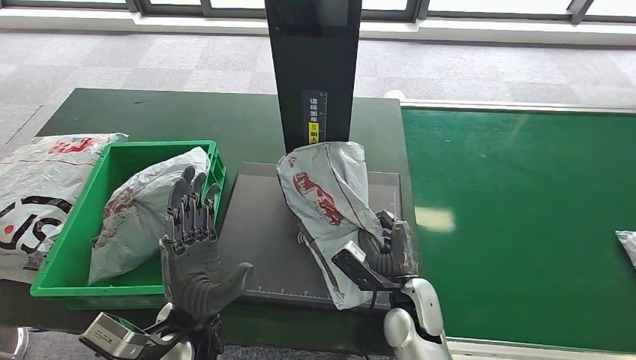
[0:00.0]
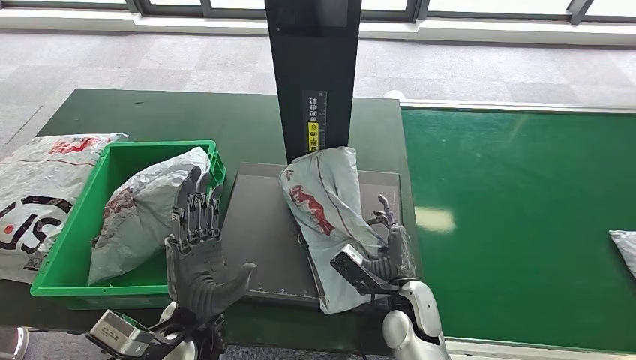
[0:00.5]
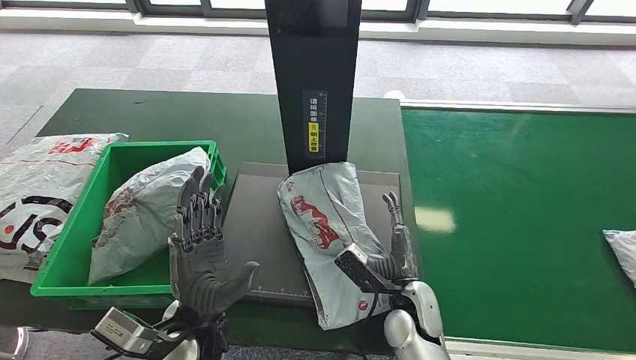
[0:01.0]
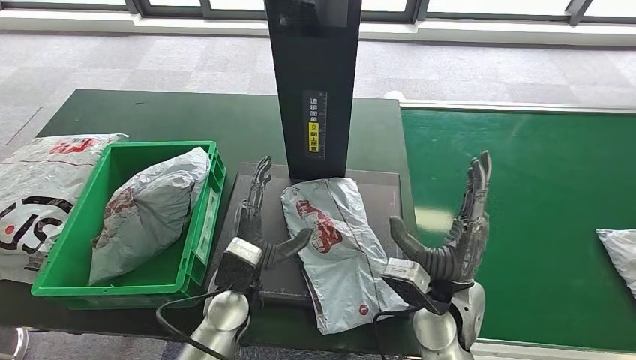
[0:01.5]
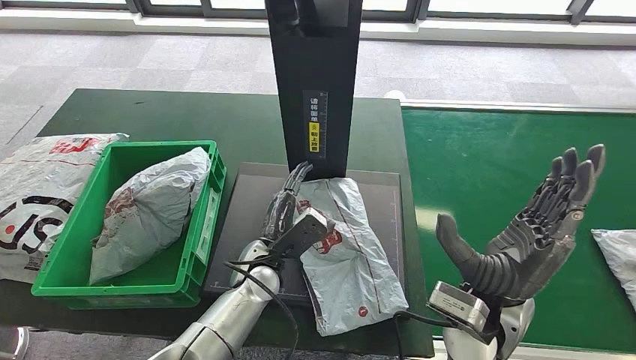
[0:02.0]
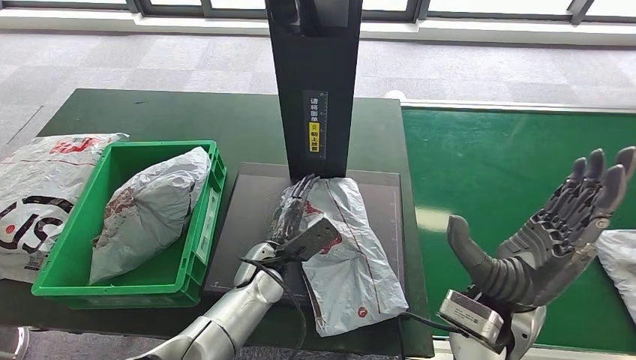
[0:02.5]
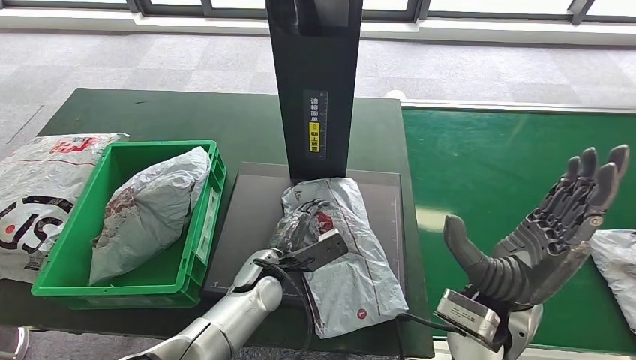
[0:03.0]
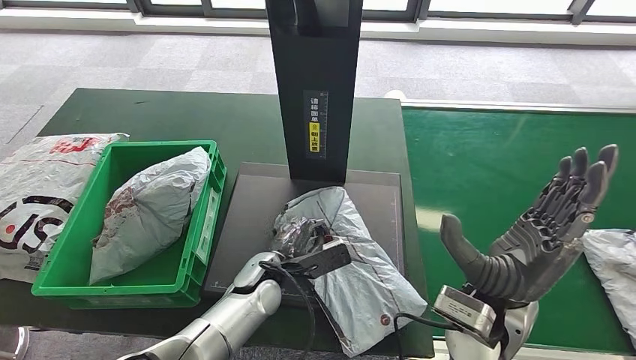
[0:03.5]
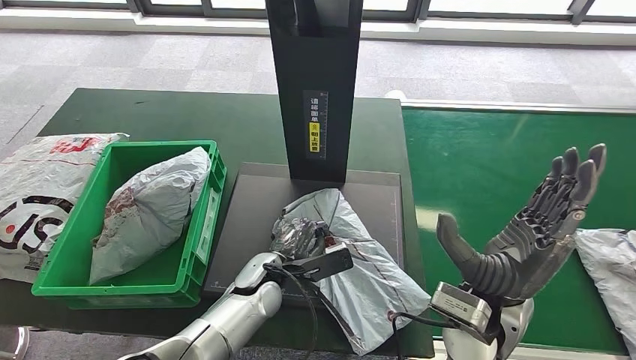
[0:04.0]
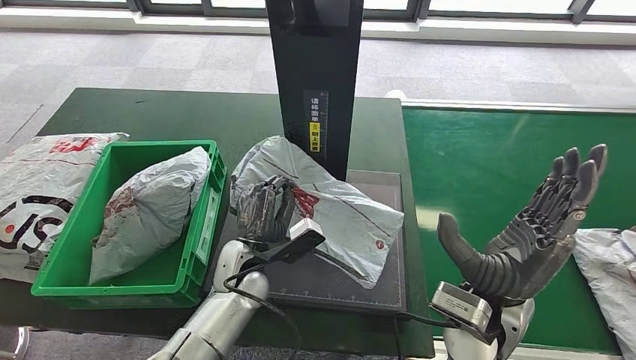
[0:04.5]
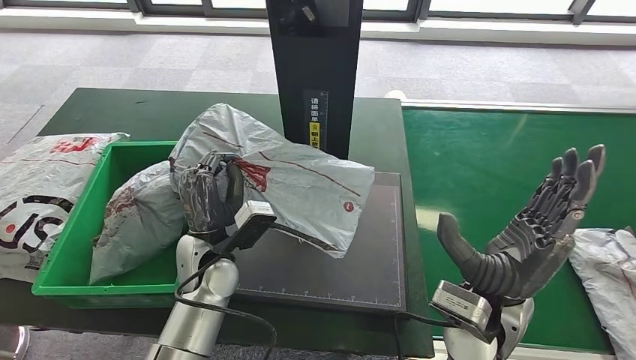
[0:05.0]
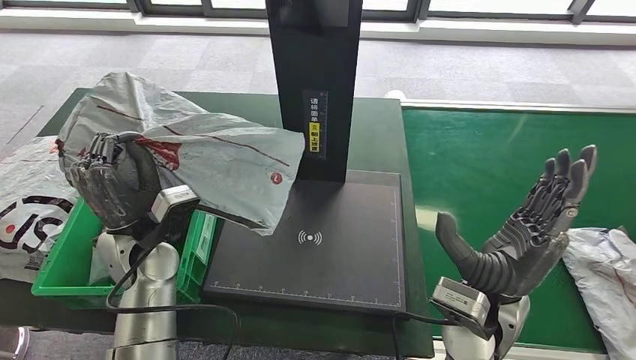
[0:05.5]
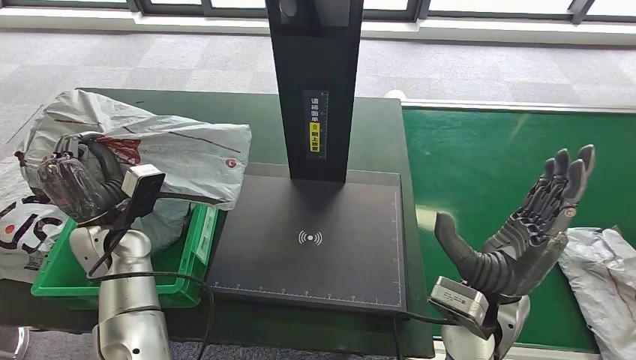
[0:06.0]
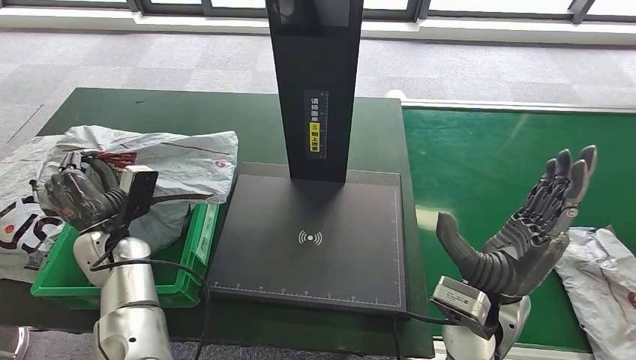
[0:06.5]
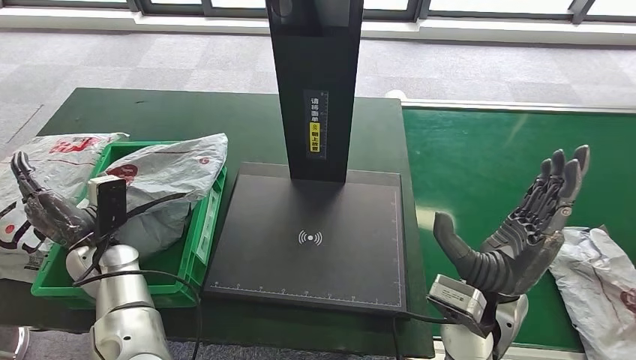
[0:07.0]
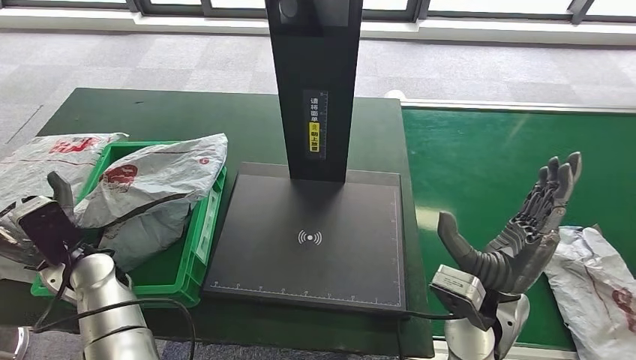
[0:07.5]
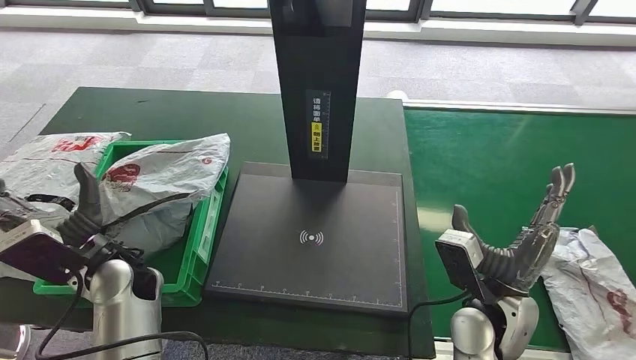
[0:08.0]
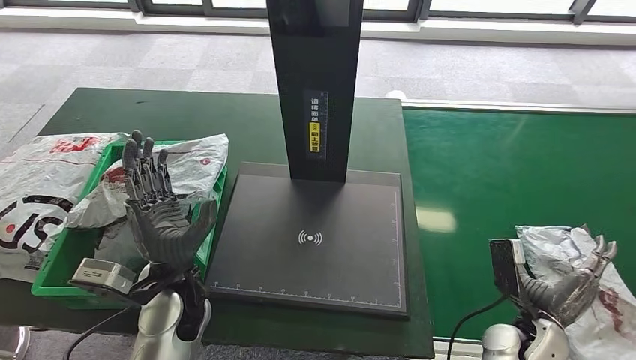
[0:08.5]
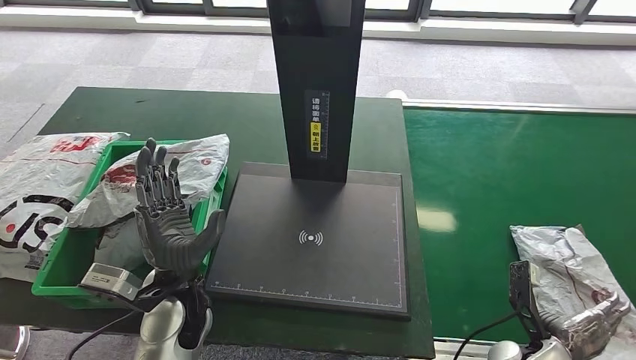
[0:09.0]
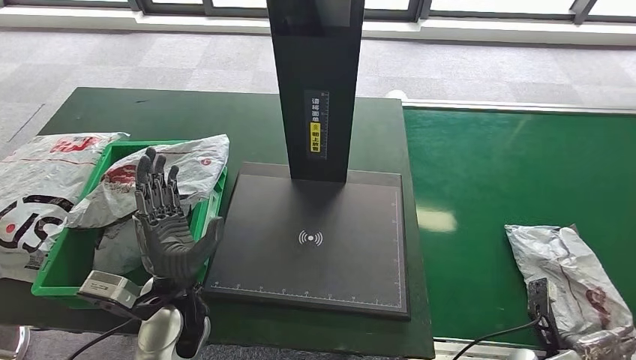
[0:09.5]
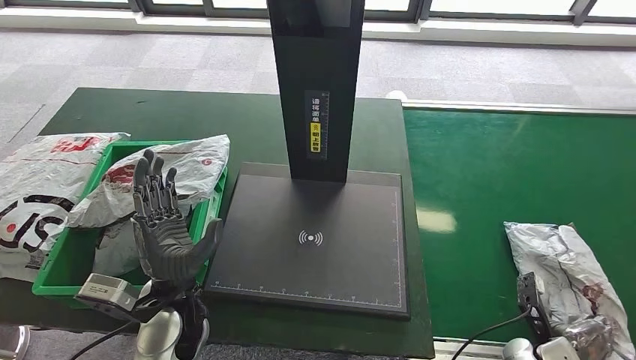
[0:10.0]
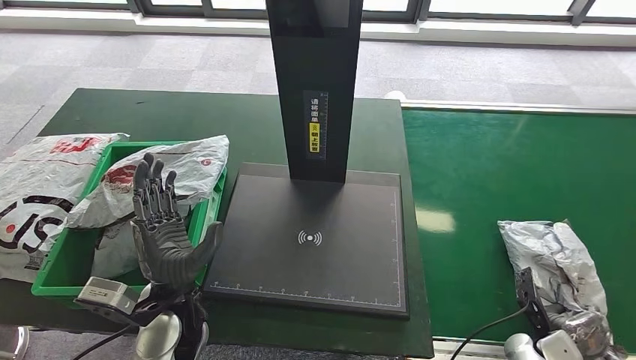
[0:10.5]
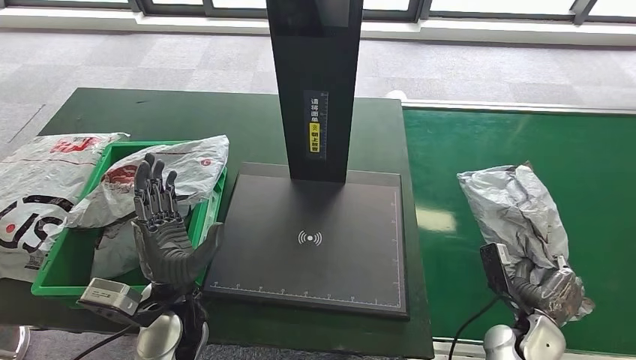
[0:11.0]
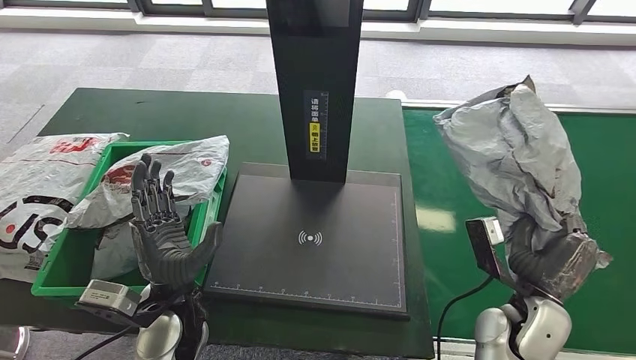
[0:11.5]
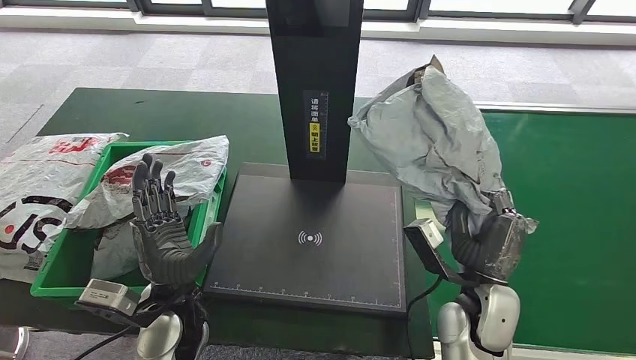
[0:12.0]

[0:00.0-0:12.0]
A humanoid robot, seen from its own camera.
Step, 0:02.0 to 0:05.5: Pick up the parcel from the inbound machine.
Step, 0:06.0 to 0:08.5: Place the parcel into the delivery box.
0:00.0 to 0:02.0: The right hand goes about 15 cm upward and to the right. The left hand goes about 15 cm forward, to the right and downward.
0:08.0 to 0:10.0: The left hand travels to the right by about 10 cm; the right hand is displaced downward and to the right by roughly 25 cm.
0:10.0 to 0:12.0: The right hand heads to the left and upward, covering roughly 25 cm.

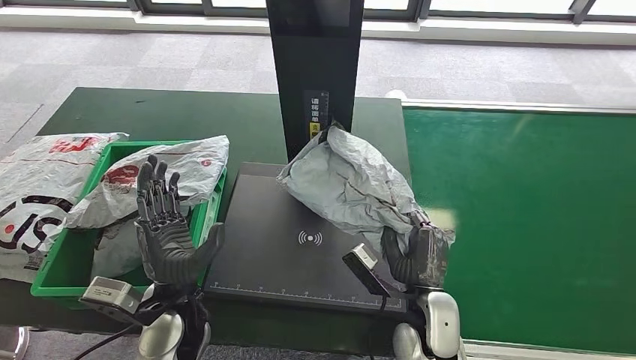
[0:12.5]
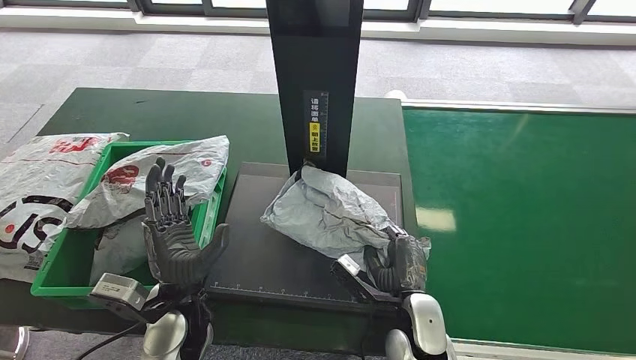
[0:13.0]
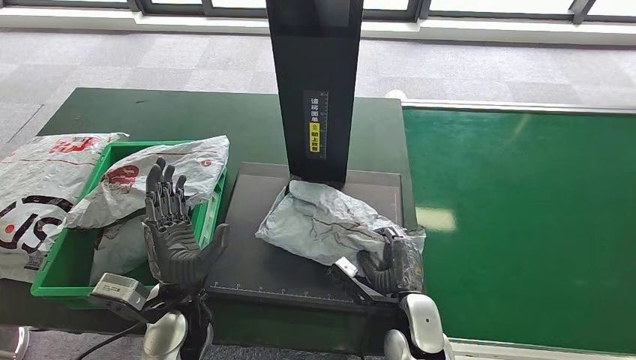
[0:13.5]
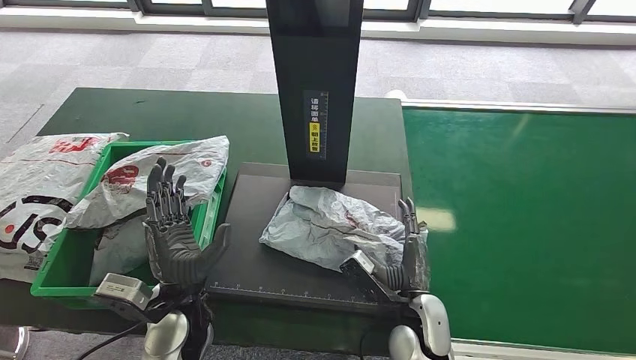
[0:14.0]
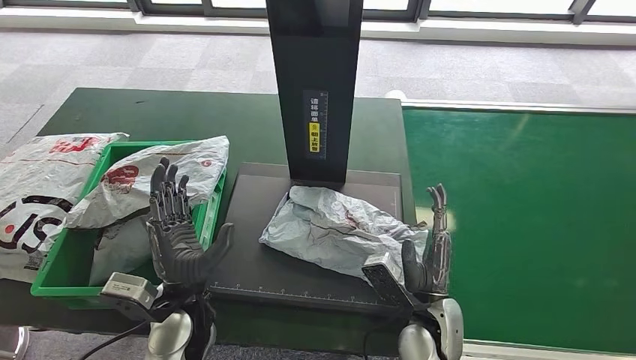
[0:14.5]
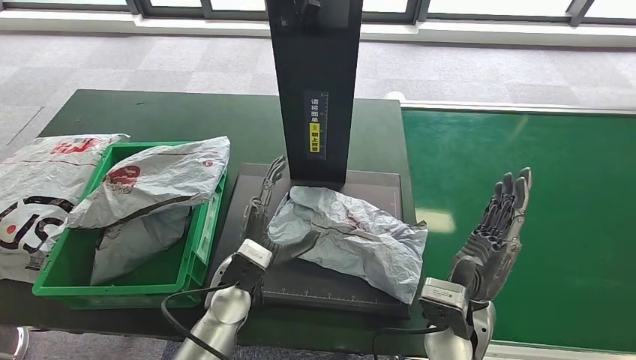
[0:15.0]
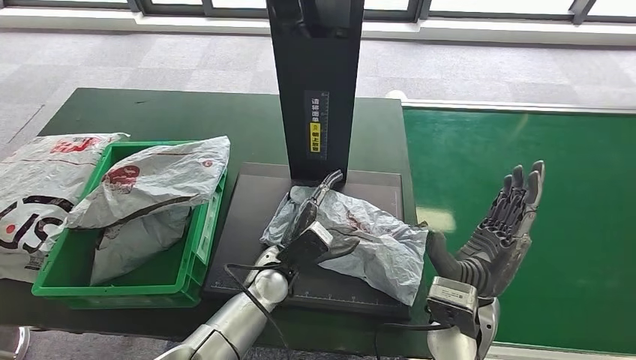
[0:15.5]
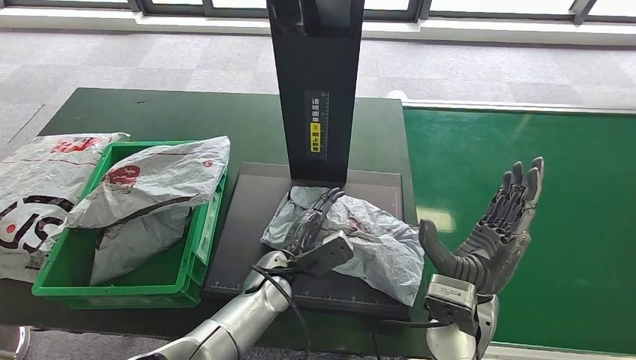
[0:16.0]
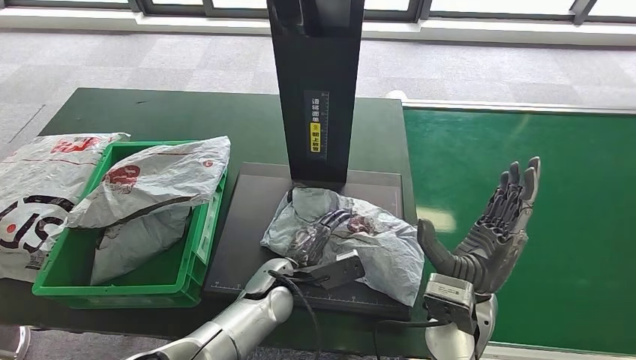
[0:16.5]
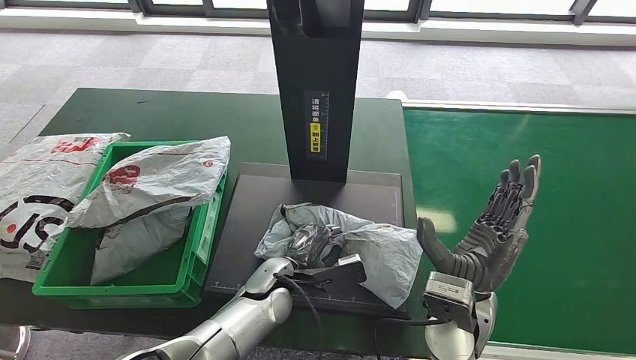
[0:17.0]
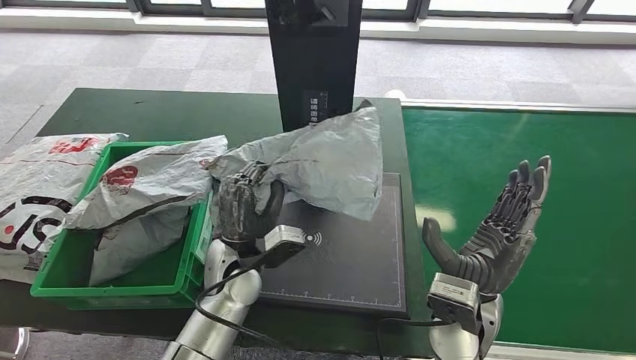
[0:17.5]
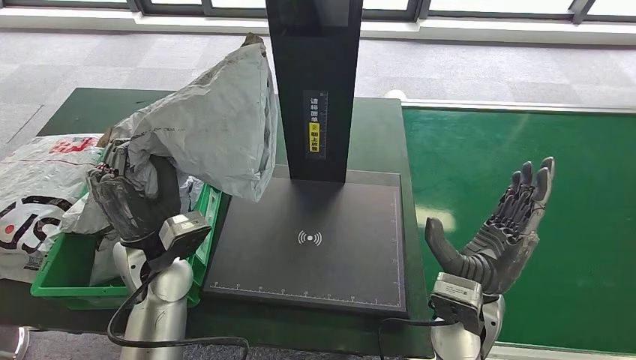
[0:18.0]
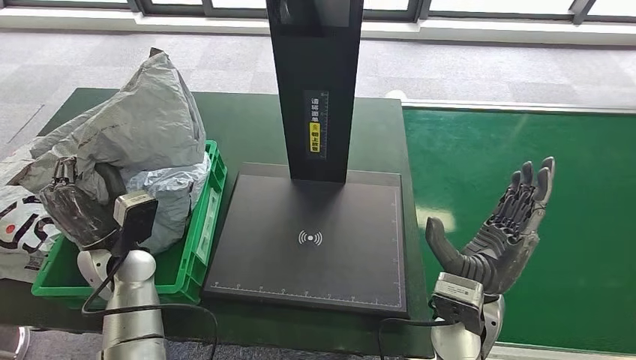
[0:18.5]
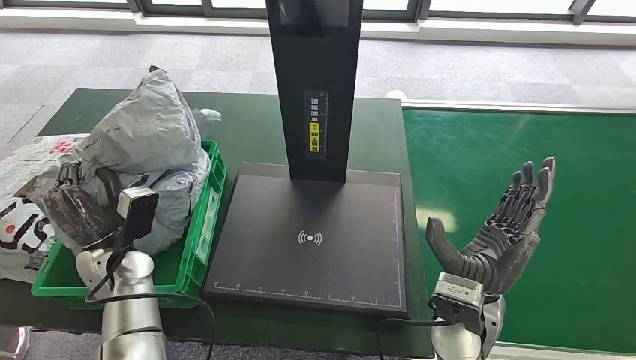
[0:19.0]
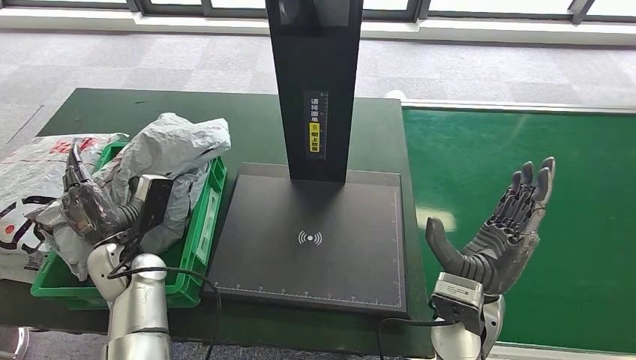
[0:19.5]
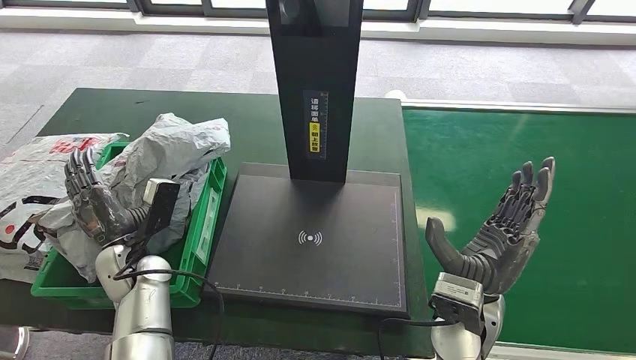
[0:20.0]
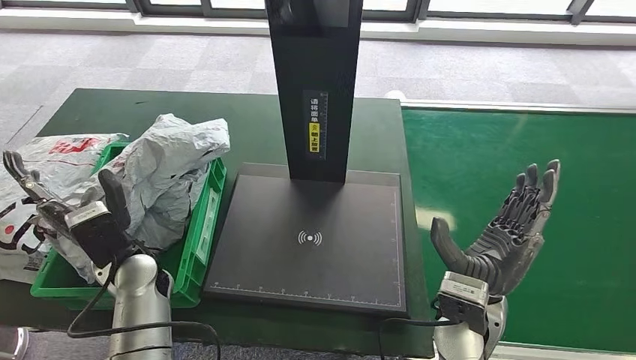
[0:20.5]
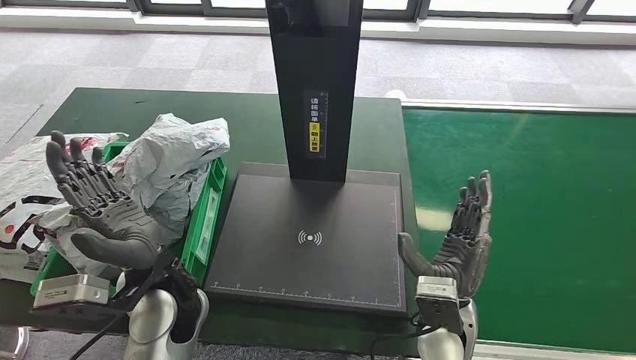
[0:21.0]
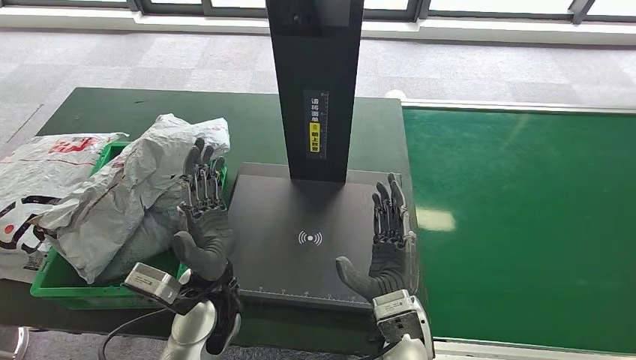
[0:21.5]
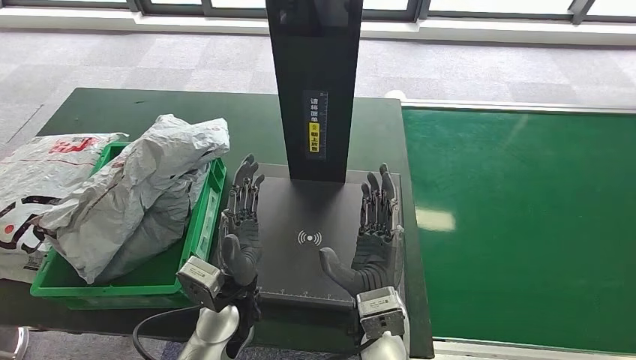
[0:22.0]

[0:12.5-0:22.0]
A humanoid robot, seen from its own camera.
Step, 0:12.5 to 0:15.0: Place the parcel onto the inbound machine.
Step, 0:15.5 to 0:18.0: Pick up the parcel from the inbound machine.
Step, 0:18.5 to 0:22.0: Place the parcel into the delivery box.
0:14.5 to 0:16.5: The right hand shifts some 10 cm upward. The left hand moves to the right, forward and downward, approximately 15 cm.
0:18.0 to 0:20.0: The left hand heads downward and to the left, covering some 10 cm.
0:20.0 to 0:22.0: The right hand shifts roughly 10 cm to the left. The left hand heads to the right, covering some 15 cm.
